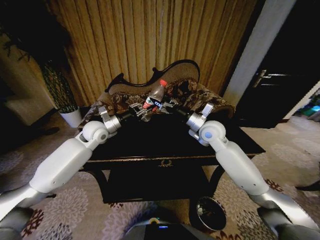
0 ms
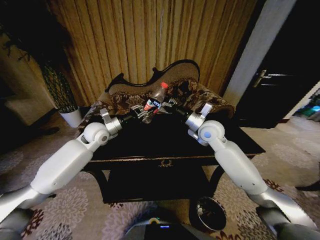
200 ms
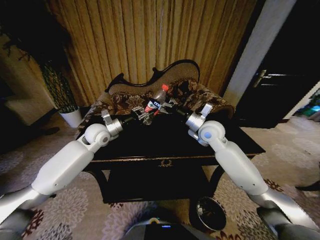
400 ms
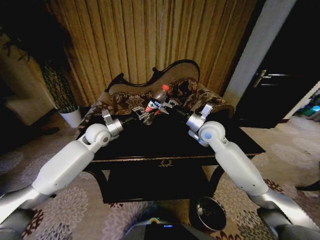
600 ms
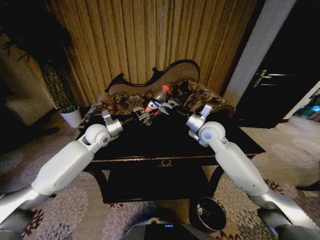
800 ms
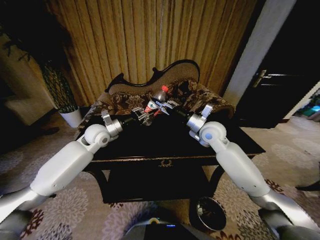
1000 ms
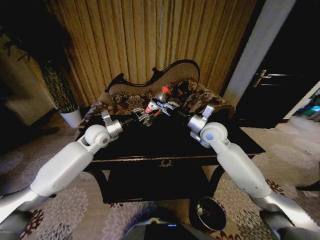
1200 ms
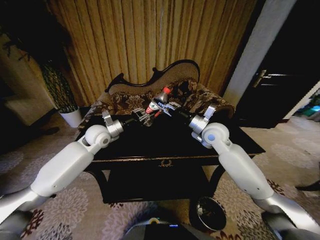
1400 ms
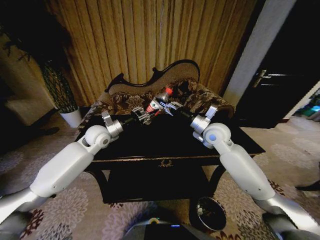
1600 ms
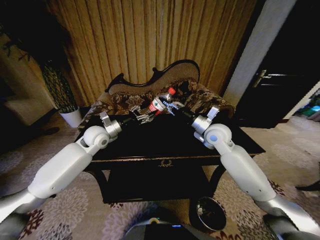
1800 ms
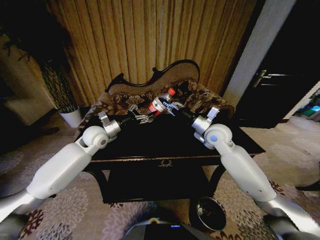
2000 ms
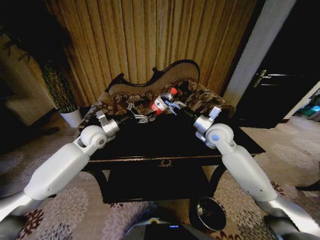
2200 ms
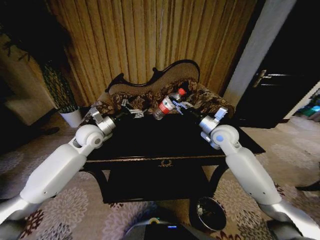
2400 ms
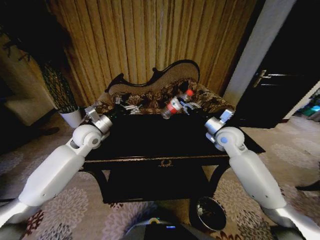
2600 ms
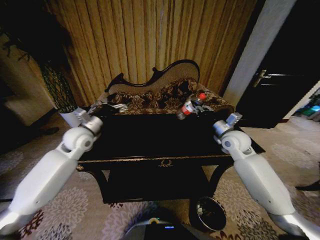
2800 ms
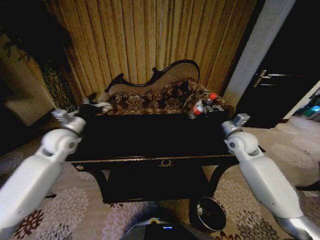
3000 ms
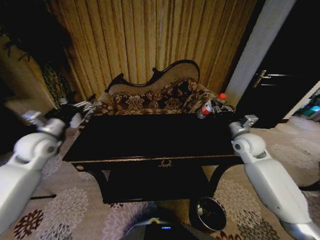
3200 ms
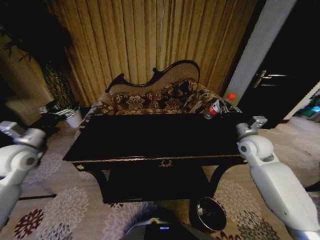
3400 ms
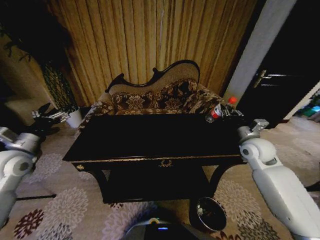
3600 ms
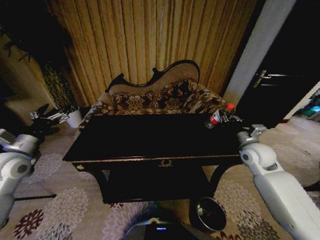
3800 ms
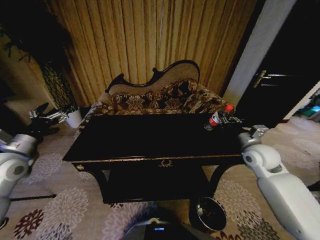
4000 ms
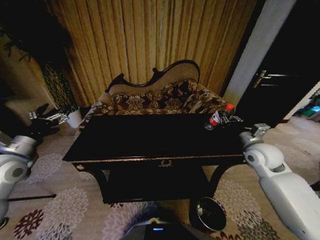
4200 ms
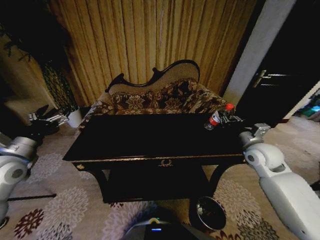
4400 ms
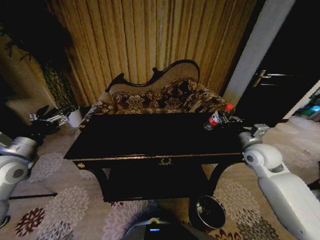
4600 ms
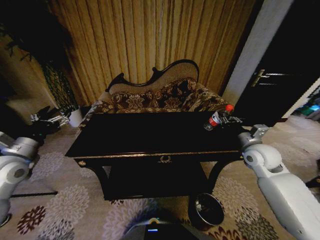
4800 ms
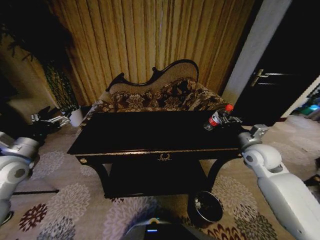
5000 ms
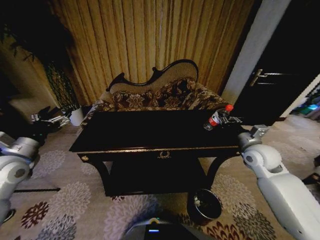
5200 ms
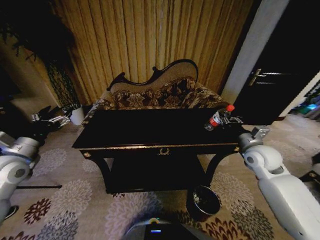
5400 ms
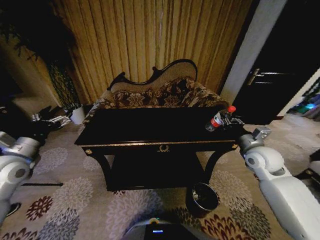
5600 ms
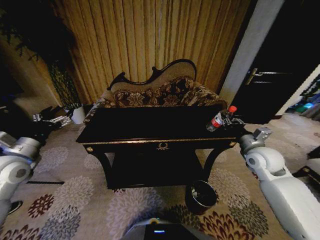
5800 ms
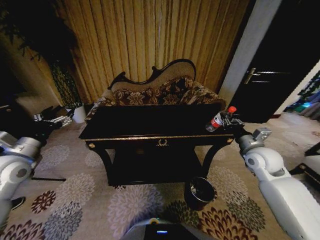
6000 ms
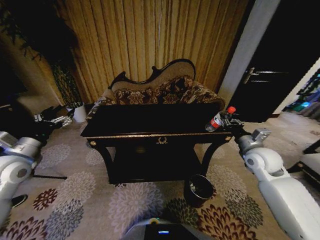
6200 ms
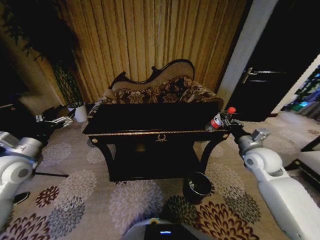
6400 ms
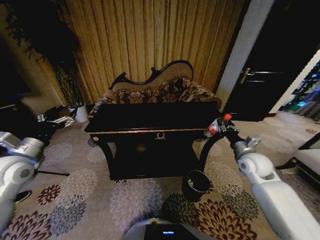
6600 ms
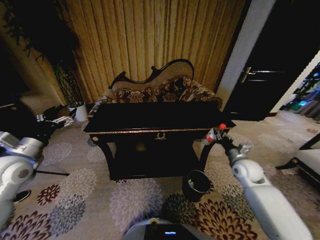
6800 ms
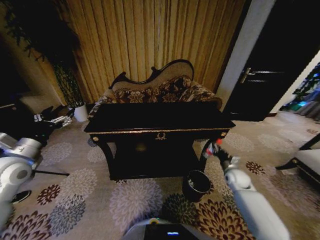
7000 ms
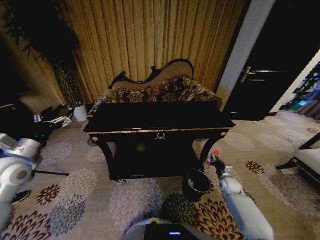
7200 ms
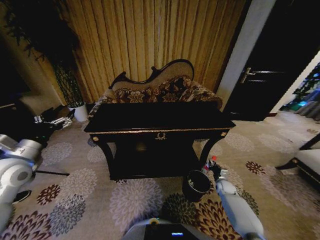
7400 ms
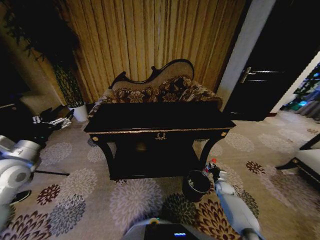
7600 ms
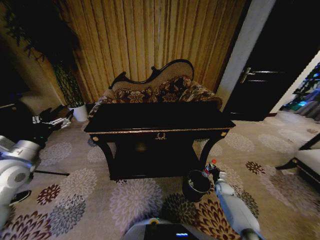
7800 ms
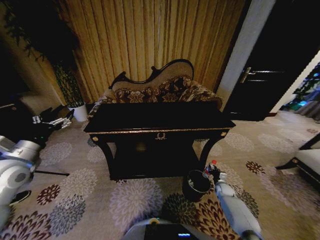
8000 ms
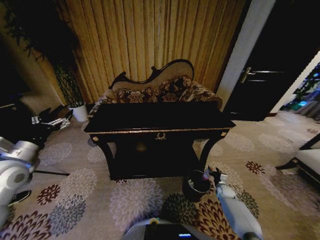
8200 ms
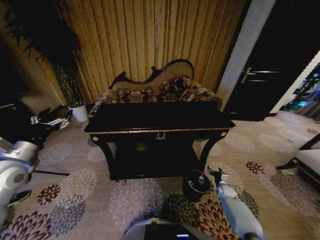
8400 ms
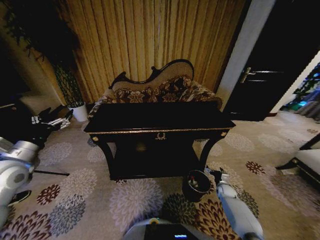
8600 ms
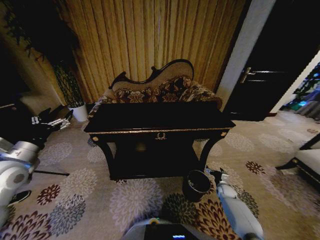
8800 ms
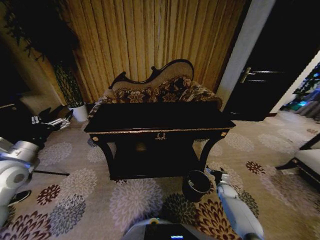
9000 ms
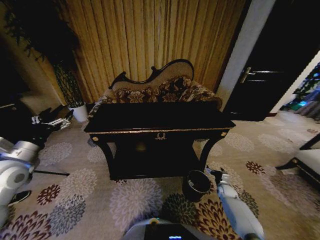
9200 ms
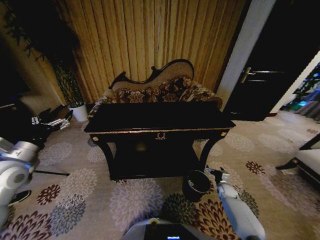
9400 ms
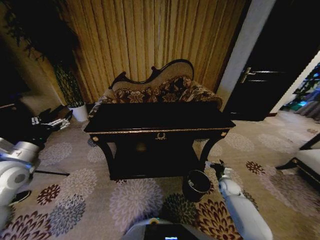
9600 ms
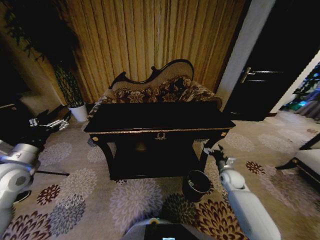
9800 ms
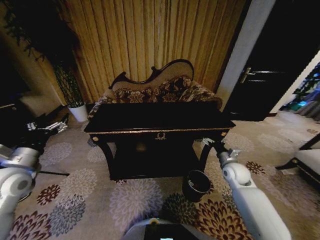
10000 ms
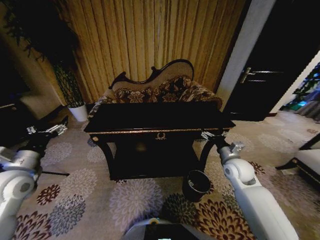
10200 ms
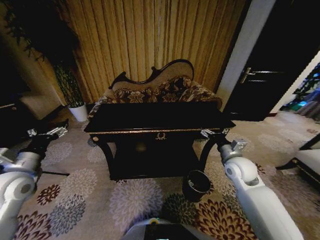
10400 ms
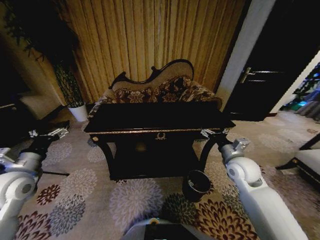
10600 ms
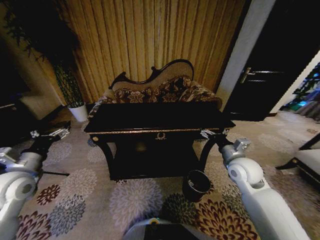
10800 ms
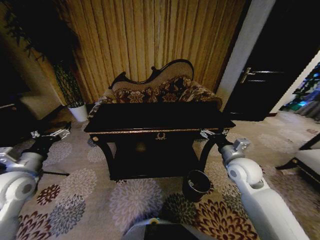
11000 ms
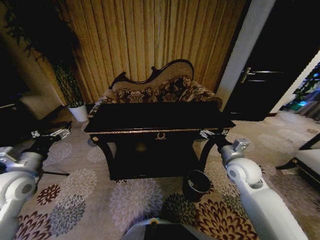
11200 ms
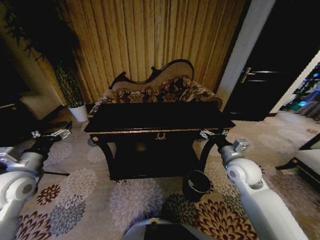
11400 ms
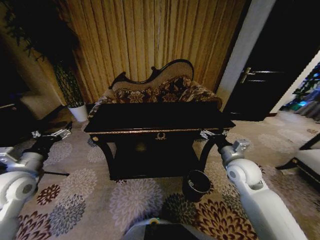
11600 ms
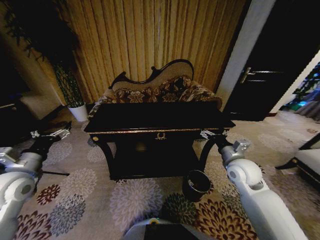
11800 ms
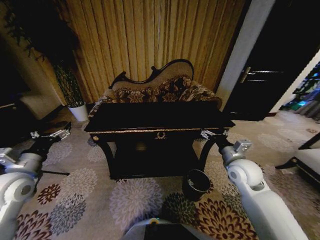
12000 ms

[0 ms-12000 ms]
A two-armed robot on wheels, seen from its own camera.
Task of the whole recording: Move to the front of the table and place the trash on the table into the trash bin.
0 ms to 1600 ms: The right gripper closes.
1600 ms to 3000 ms: The left gripper heads to the left, covering roughly 10 cm, and opens. Meanwhile the right gripper travels to the right by roughly 10 cm.
3000 ms to 4400 ms: The right gripper is displaced backward by about 5 cm. Meanwhile the left gripper travels backward and to the left by approximately 15 cm.
6000 ms to 7600 ms: The right gripper moves downward, roughly 35 cm.
7600 ms to 9000 ms: The right gripper opens.
9000 ms to 10400 ms: The right gripper moves upward, about 30 cm.
10400 ms to 12000 ms: The grippers stay close to where they were, moving slightly.

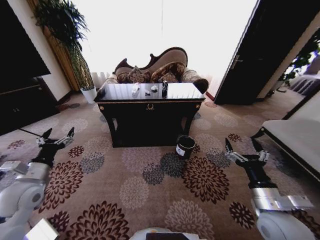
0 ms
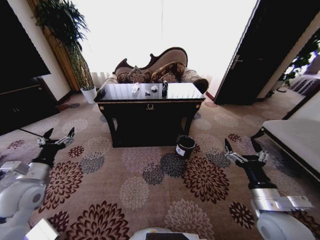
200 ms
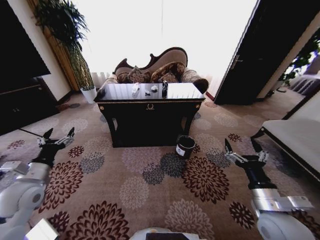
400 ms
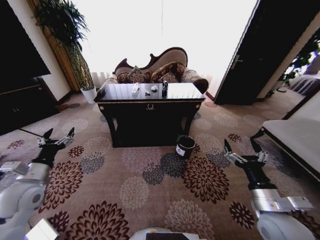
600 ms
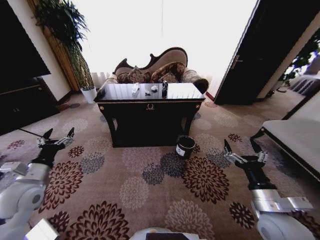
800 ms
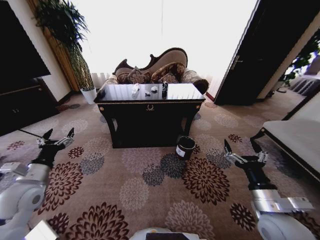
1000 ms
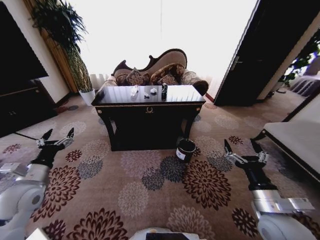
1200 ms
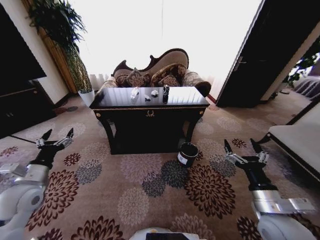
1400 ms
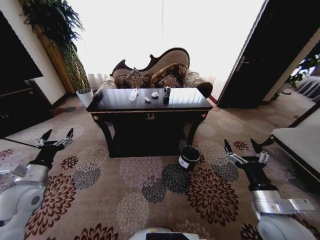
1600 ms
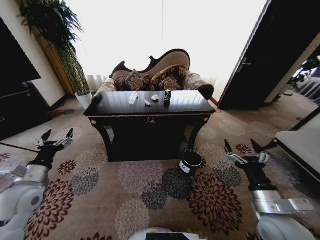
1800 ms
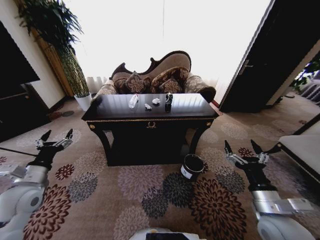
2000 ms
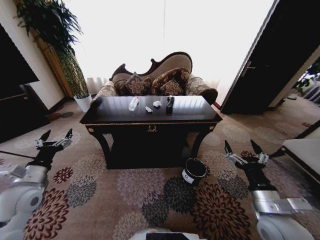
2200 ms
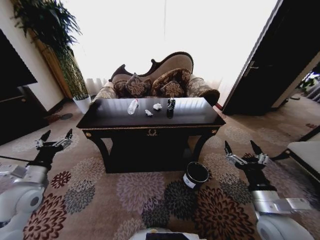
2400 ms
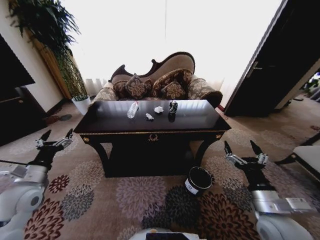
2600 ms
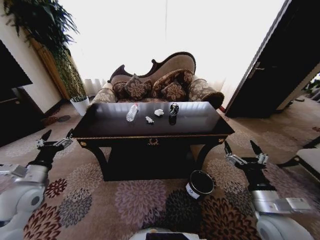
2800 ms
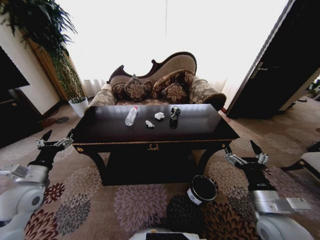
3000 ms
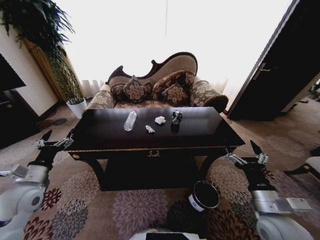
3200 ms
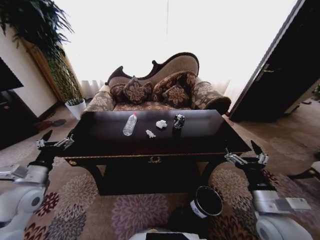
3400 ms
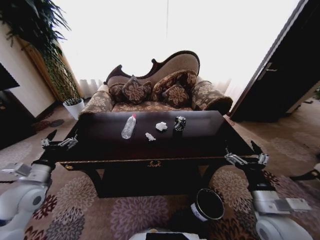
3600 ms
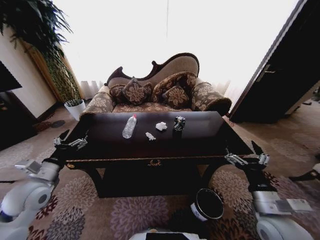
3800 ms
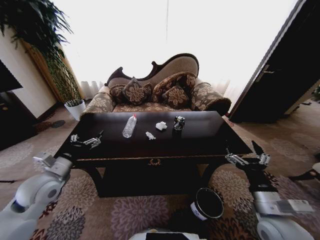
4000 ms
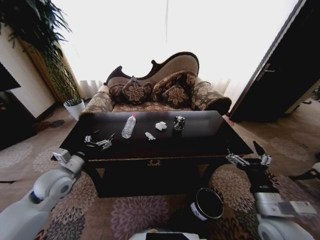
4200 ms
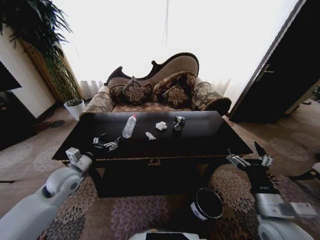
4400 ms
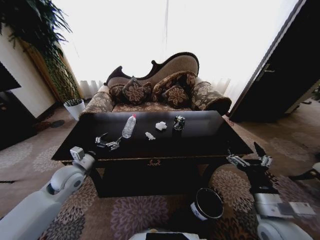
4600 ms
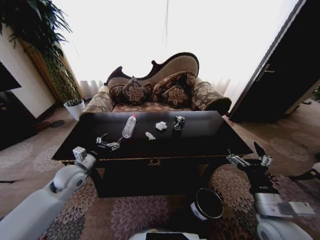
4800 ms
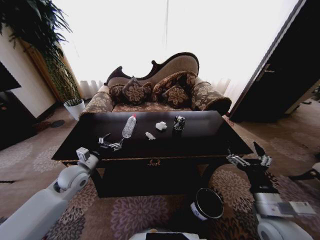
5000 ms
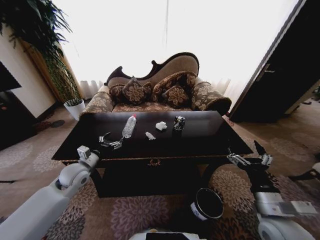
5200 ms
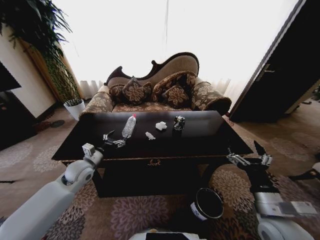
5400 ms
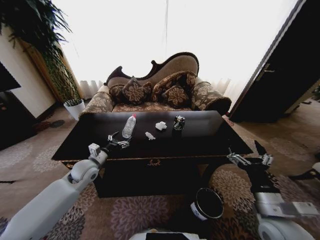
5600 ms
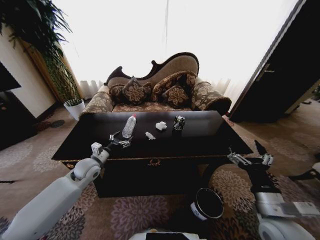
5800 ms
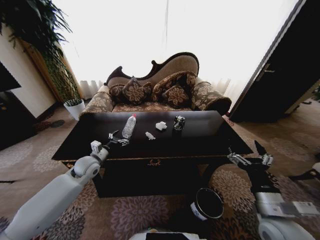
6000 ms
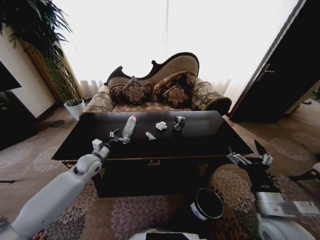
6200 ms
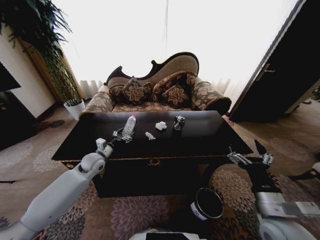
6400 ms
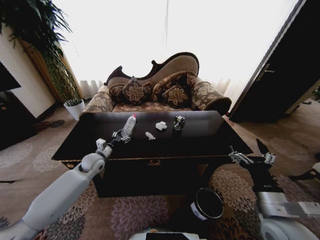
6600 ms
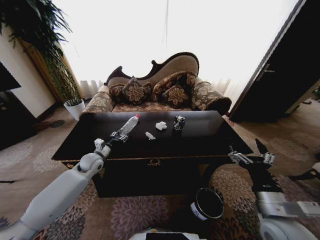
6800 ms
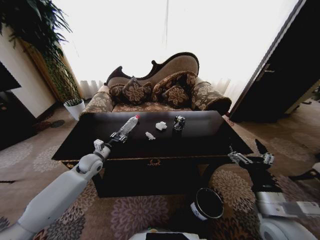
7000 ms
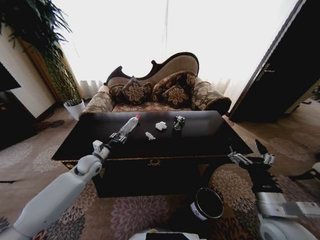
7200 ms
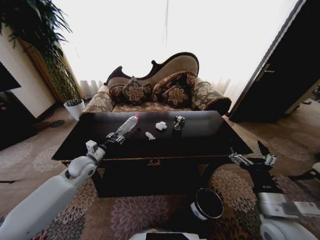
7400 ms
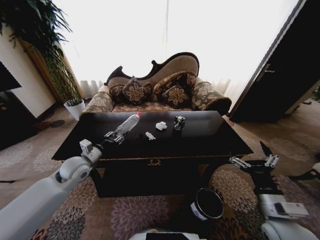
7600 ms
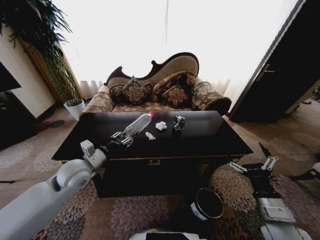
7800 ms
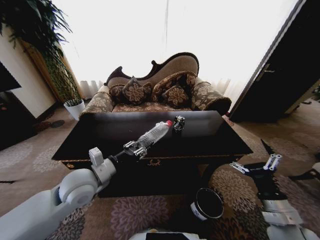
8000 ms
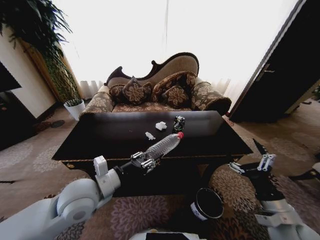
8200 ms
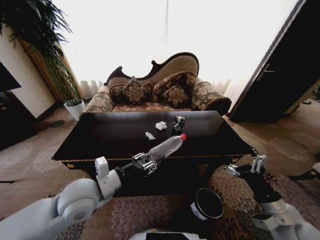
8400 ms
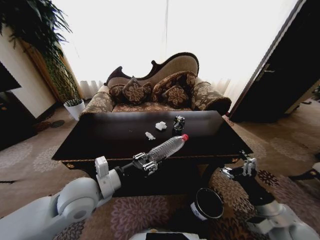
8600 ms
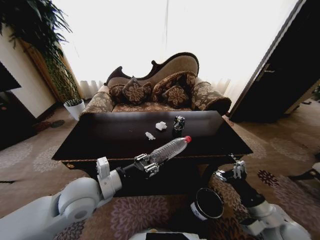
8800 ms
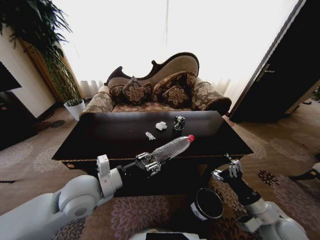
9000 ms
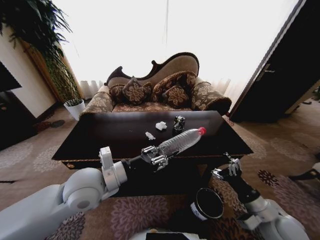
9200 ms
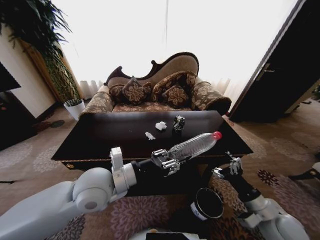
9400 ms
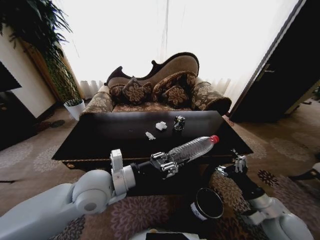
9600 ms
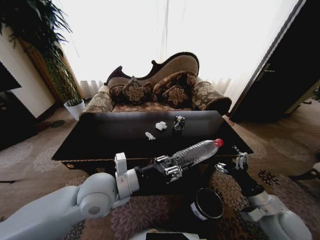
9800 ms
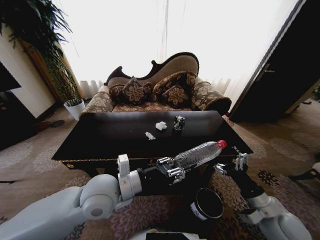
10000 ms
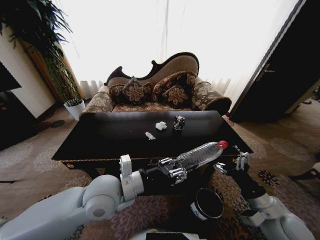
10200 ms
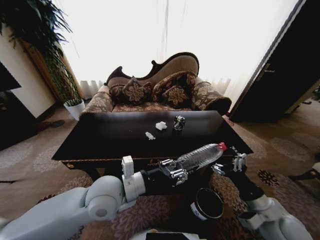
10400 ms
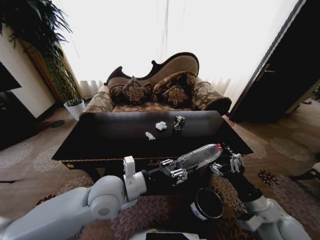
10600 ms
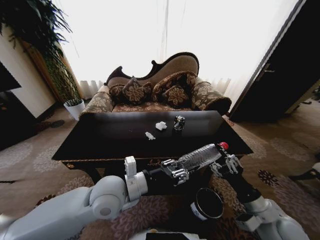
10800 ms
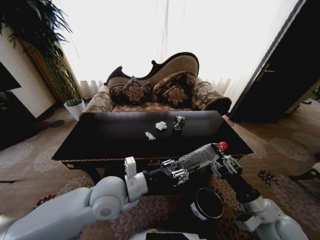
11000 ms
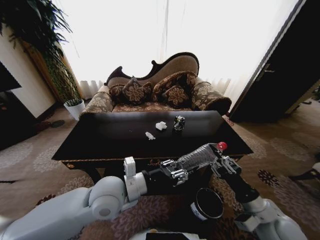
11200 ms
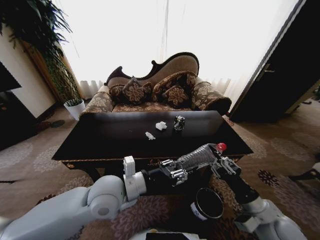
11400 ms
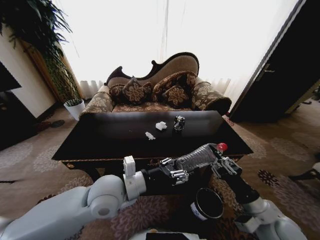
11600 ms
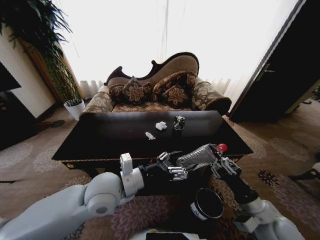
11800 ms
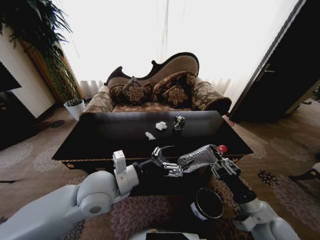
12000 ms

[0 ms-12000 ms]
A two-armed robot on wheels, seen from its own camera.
Task of the whole recording: Move to the front of the table and place the trash on the table into the trash bin.
3000 ms to 4400 ms: The left gripper goes roughly 10 cm to the right and forward.
4400 ms to 6000 ms: The left gripper shifts roughly 10 cm forward.
6000 ms to 7600 ms: The left gripper shifts by approximately 5 cm, and closes up.
7600 ms to 9000 ms: The left gripper is displaced backward, to the right and upward by roughly 15 cm.
9000 ms to 10400 ms: The left gripper moves to the right, about 5 cm.
10400 ms to 12000 ms: The right gripper closes up, while the left gripper opens its fingers.
